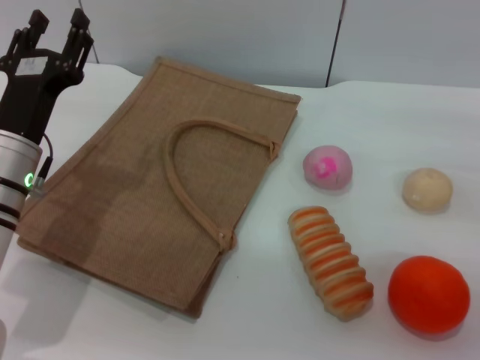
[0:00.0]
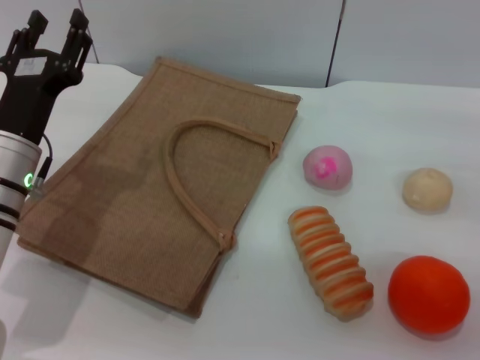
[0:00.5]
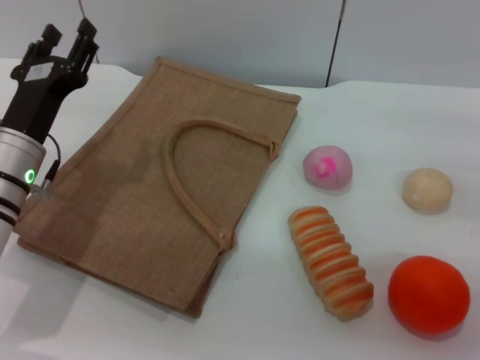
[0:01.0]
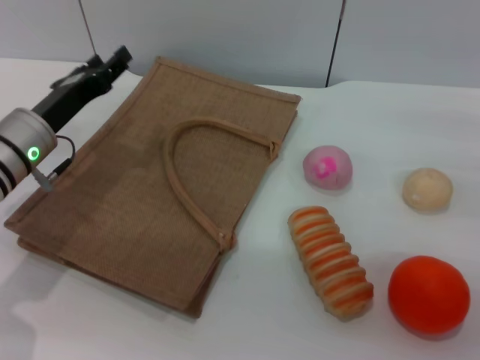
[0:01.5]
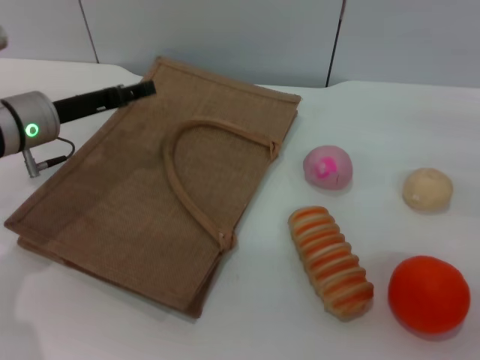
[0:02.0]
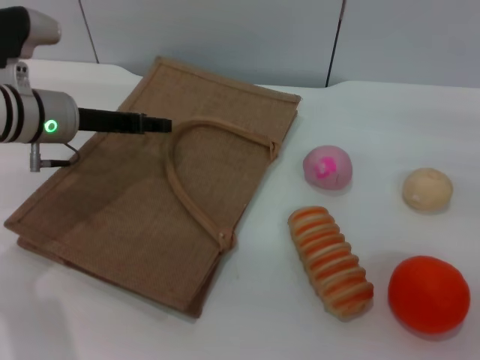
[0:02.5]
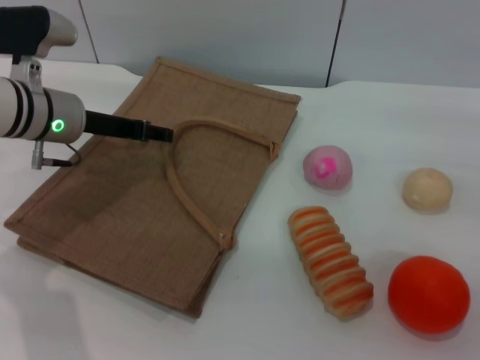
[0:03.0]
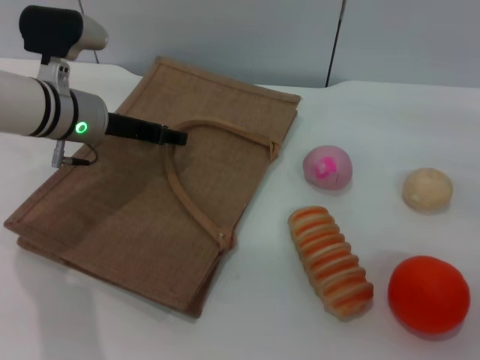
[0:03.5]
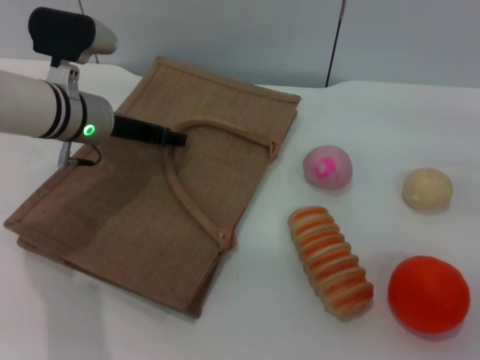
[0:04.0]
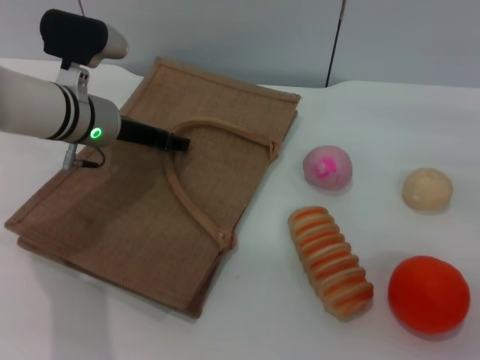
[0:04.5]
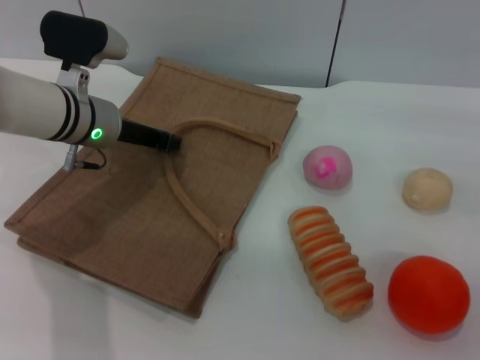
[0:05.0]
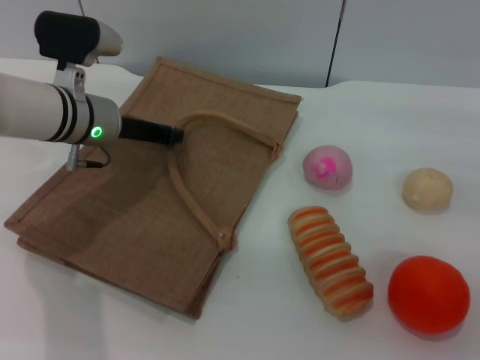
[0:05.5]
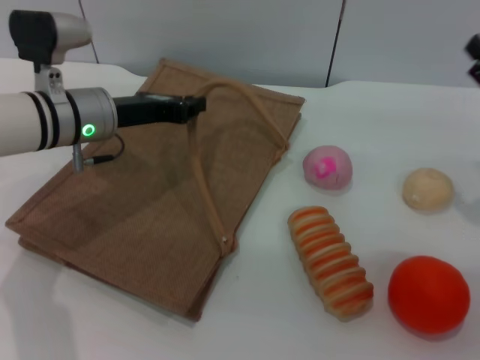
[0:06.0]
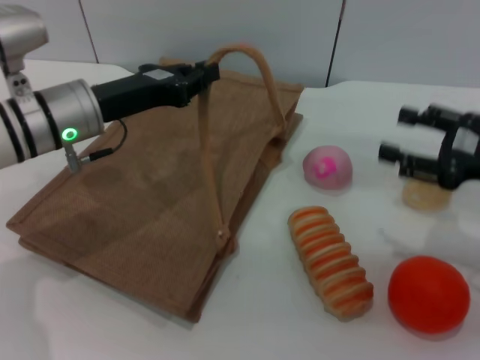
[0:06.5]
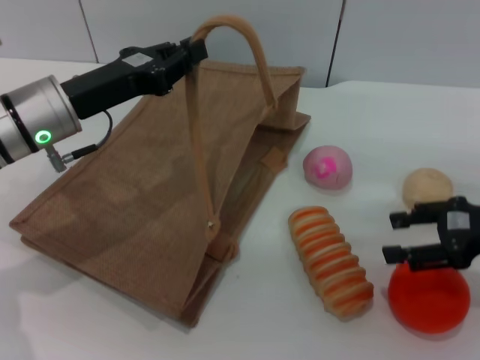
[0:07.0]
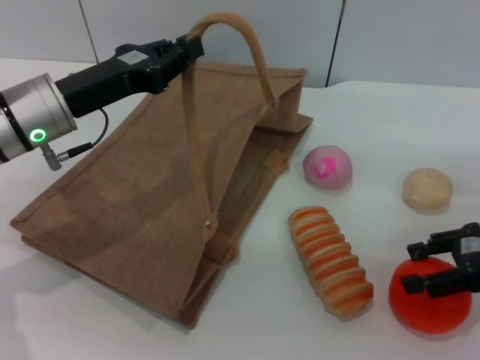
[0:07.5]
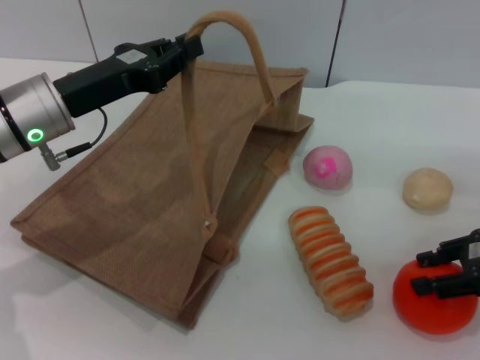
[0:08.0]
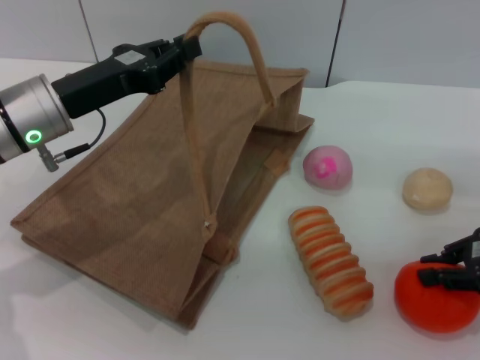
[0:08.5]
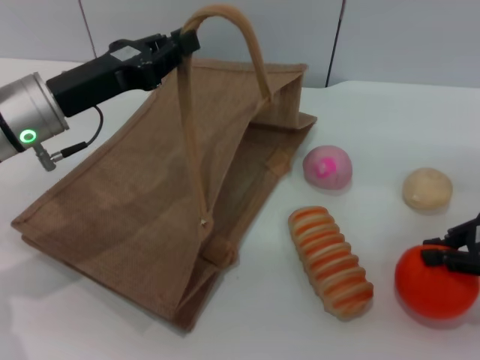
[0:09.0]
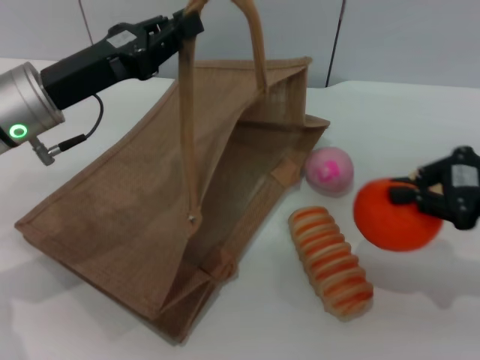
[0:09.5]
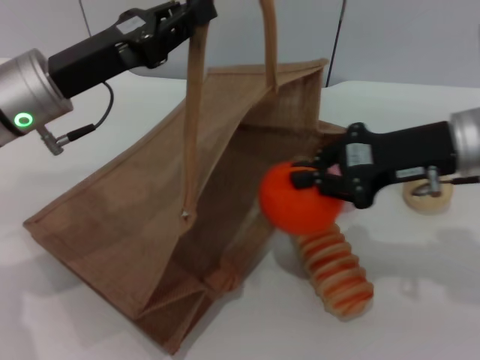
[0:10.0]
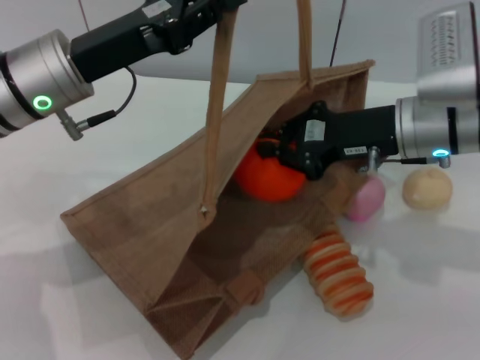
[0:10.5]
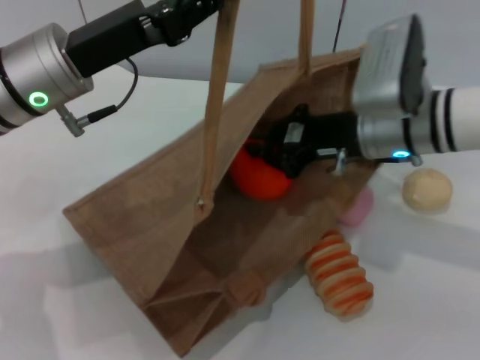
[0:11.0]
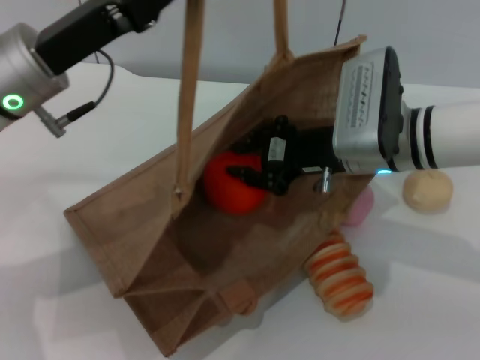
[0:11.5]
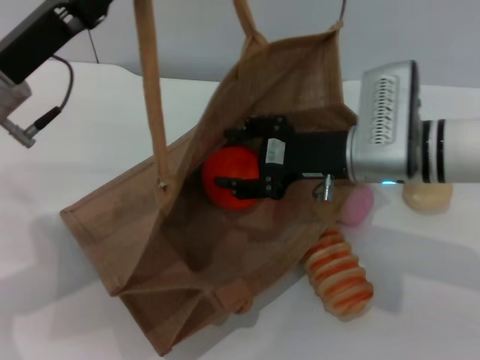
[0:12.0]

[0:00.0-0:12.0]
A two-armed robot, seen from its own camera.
Task of the whole recording: pick up the orange and peach from the table and place it in the brown handbag.
Step, 0:00.0 to 0:06.0: Lift the woven bag with the left gripper to open it.
Step, 0:06.5 to 0:09.0: Pick up the orange with the right gripper.
Step, 0:09.5 to 0:12.0: Place the orange into the woven bag with the right gripper.
0:00.0 to 0:02.0: The left gripper moves forward, some 10 cm.
0:02.0 to 0:04.0: The left gripper shifts about 5 cm to the right.
0:04.0 to 0:06.0: The left gripper closes up.
0:06.0 to 0:08.0: The left gripper changes place by about 5 cm.
0:08.0 to 0:10.0: The right gripper is displaced to the left by some 10 cm, and closes.
0:10.0 to 0:12.0: The right gripper heads to the left and downward, covering approximately 10 cm, and opens up.

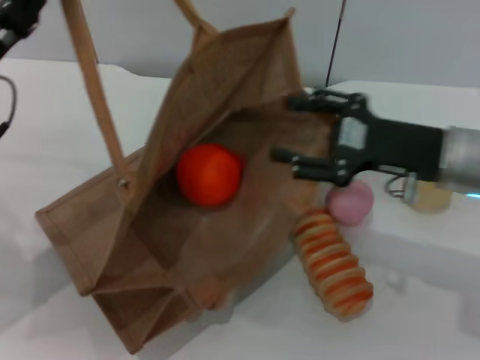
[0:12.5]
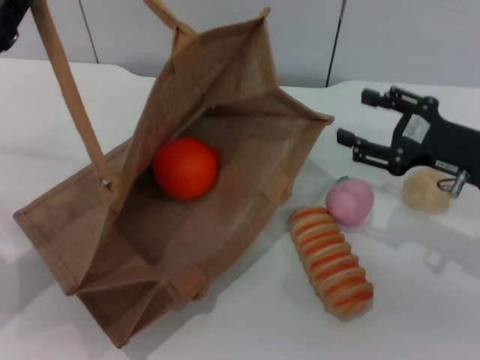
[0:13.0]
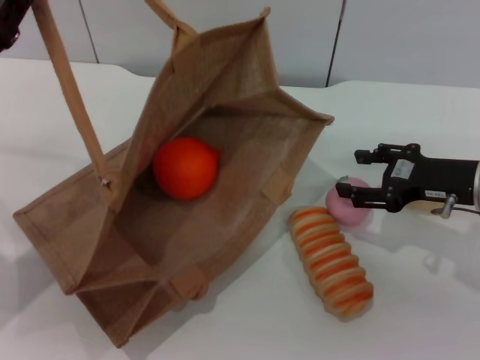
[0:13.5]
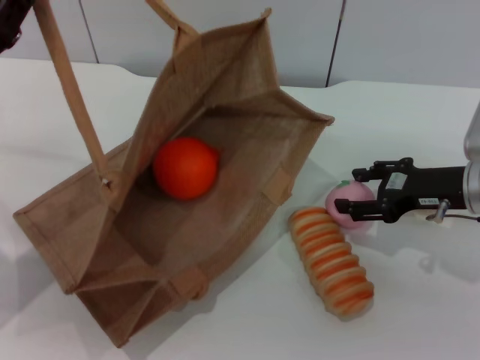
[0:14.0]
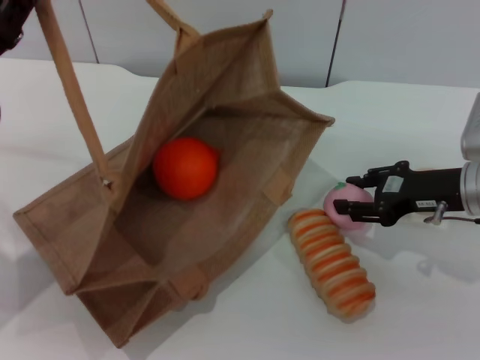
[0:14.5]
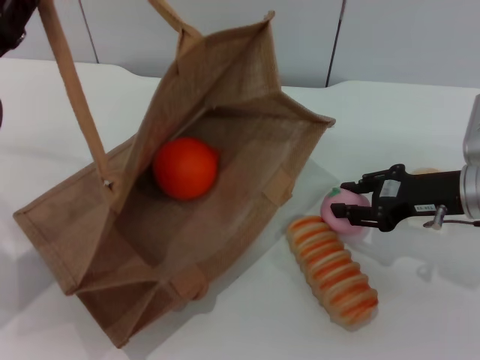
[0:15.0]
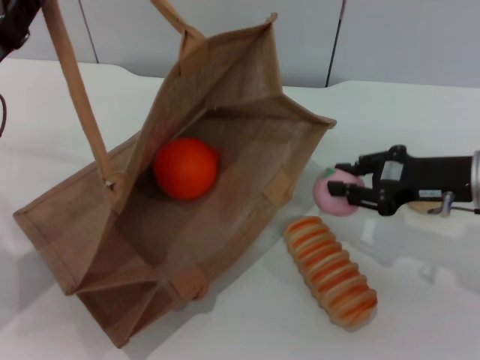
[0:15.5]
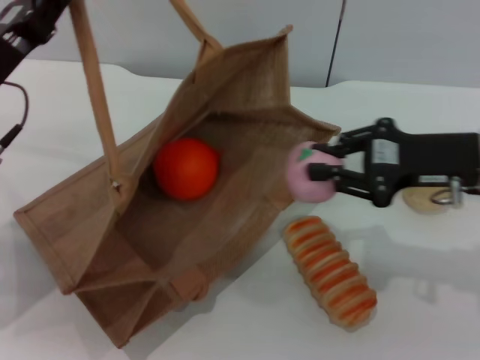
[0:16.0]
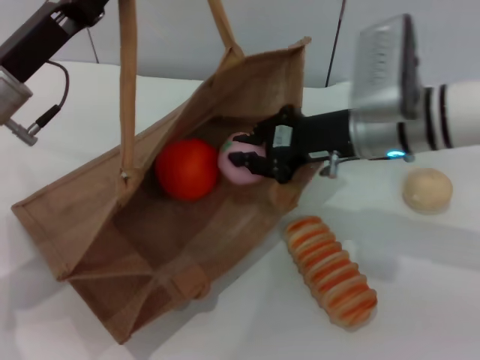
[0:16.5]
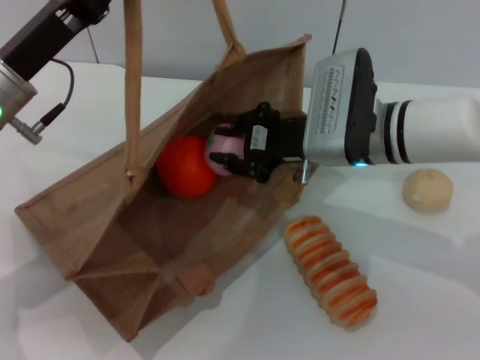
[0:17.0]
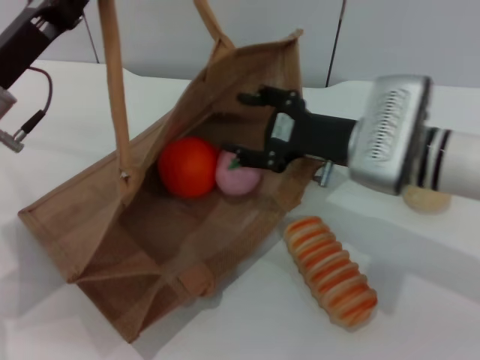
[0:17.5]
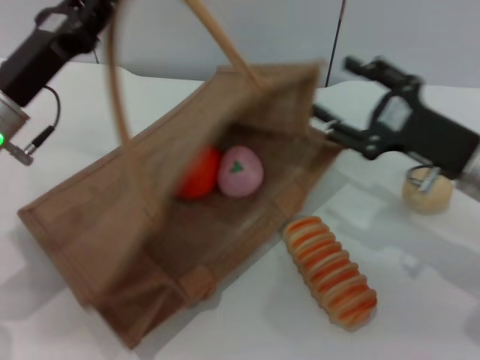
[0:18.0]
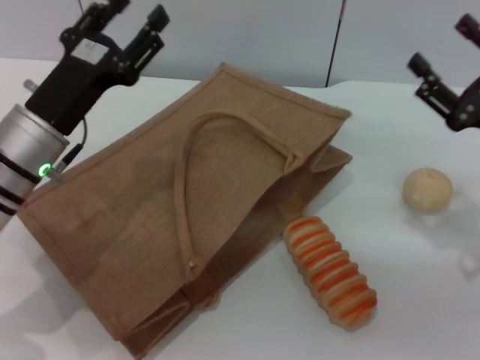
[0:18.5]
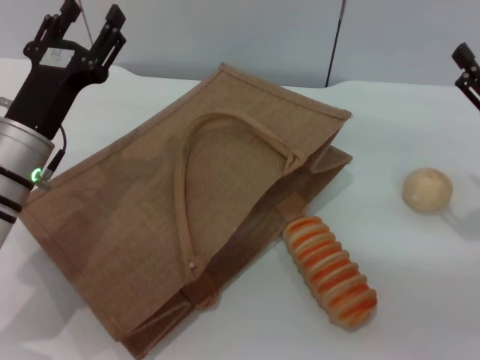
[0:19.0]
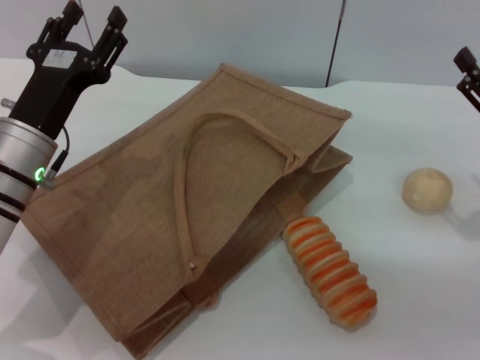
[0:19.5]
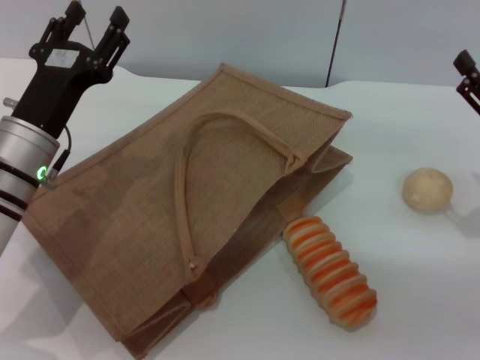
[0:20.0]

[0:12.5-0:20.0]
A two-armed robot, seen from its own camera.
Task of the whole recording: pick up the orange and peach from the table and place it in the brown handbag.
Step, 0:12.5 to 0:15.5: Pick up the peach with the right gripper.
Step, 0:16.0 to 0:17.5: Place the peach into the woven bag with the right gripper.
0:12.5 to 0:14.5: The right gripper shifts by roughly 5 cm.
0:14.5 to 0:16.5: The left gripper moves some 5 cm, while the right gripper is displaced to the left by some 10 cm, and closes its fingers.
0:16.5 to 0:18.0: The right gripper goes approximately 10 cm to the right and backward, and opens.
0:18.0 to 0:20.0: The right gripper travels to the right by approximately 5 cm. The left gripper moves some 5 cm, and opens up.

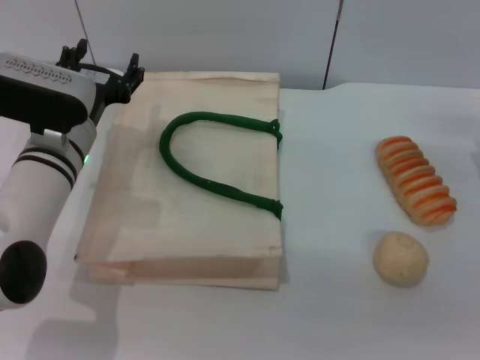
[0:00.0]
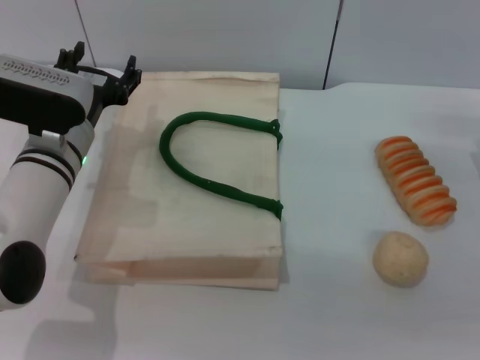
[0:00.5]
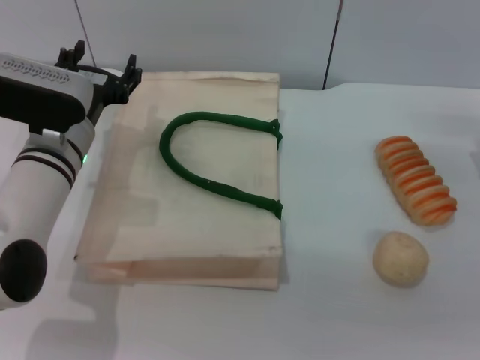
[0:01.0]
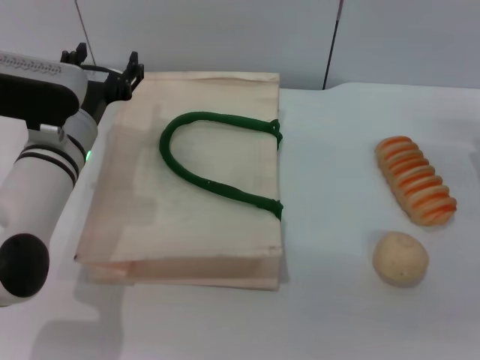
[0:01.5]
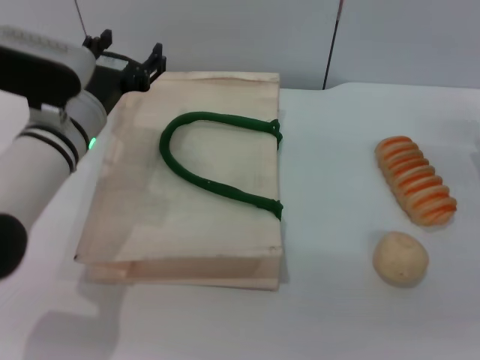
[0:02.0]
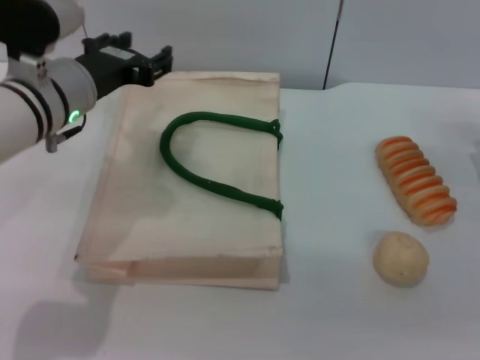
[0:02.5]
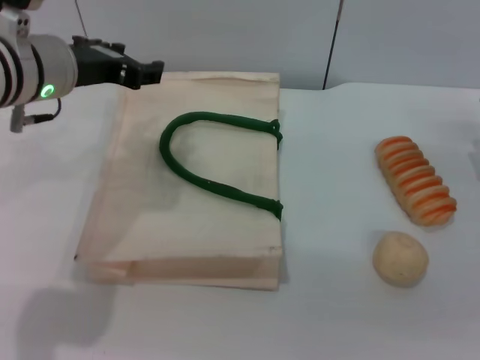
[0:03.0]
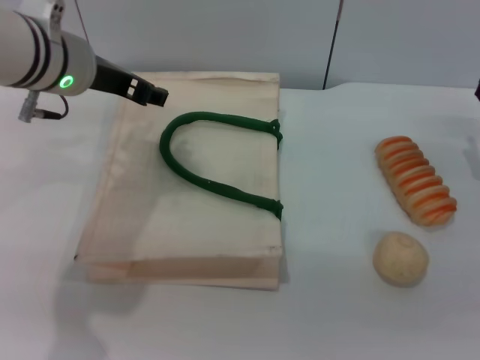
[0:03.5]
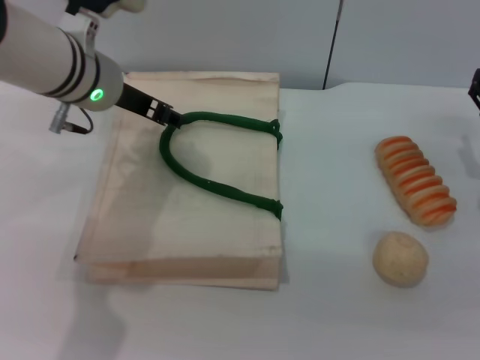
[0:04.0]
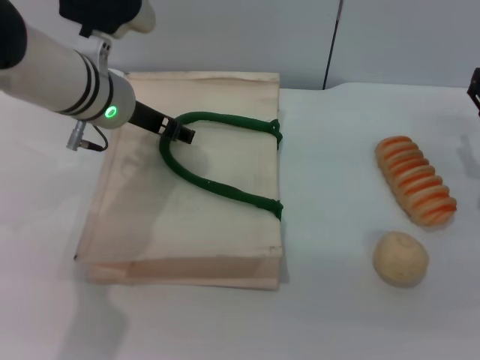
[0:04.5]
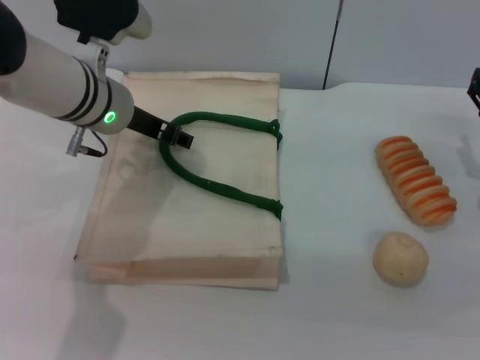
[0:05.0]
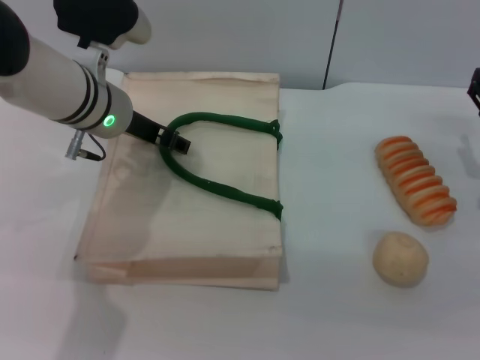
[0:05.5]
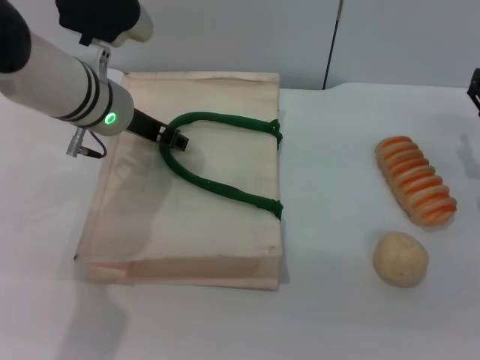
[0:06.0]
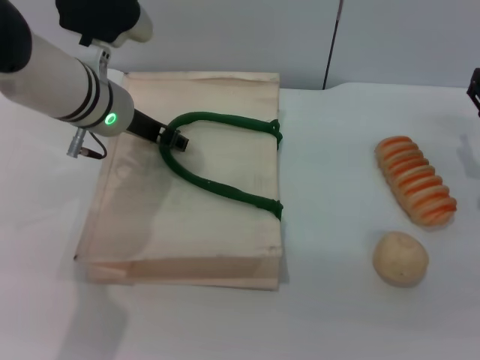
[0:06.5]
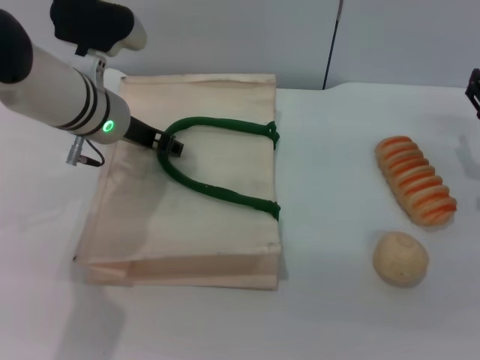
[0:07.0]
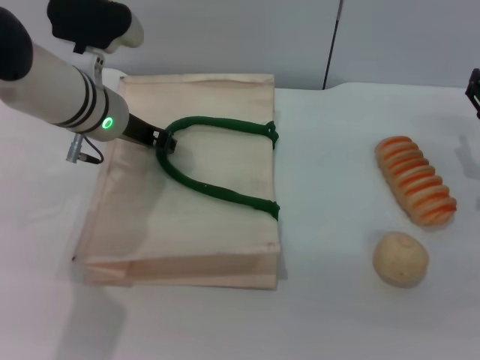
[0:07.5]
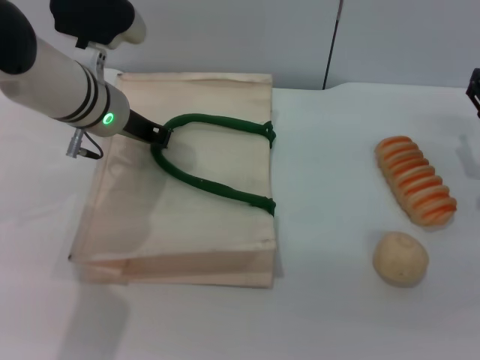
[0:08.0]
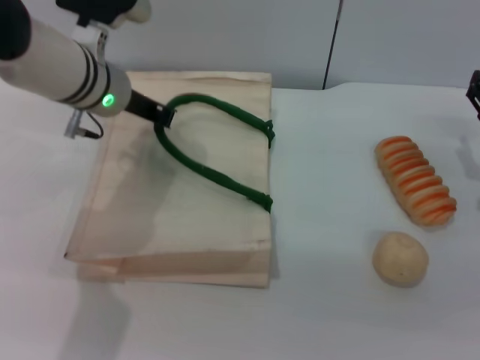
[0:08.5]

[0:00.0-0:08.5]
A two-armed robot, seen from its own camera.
Task of the whole recording: pick up the bread and egg yolk pastry from the table and place it in the white handbag.
0:00.0 to 0:02.0: The grippers make only small movements.
0:02.0 to 0:04.0: The left gripper travels upward by some 10 cm.
0:04.0 to 0:06.5: The grippers make only small movements.
0:06.5 to 0:08.5: The left gripper closes up.
